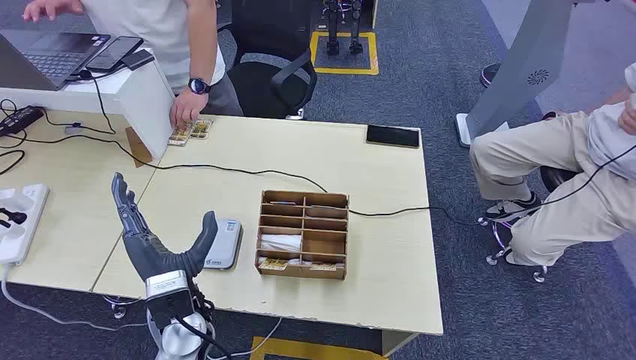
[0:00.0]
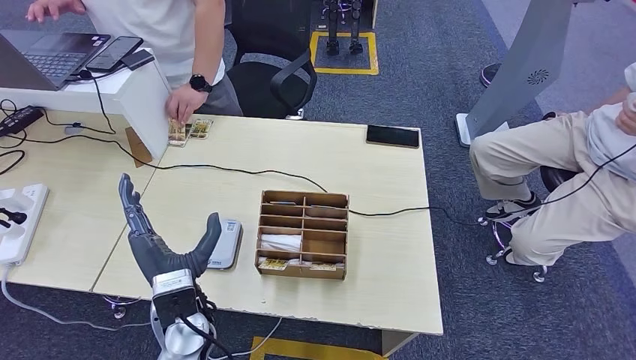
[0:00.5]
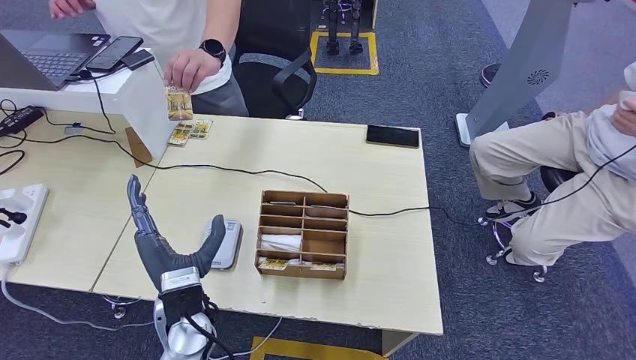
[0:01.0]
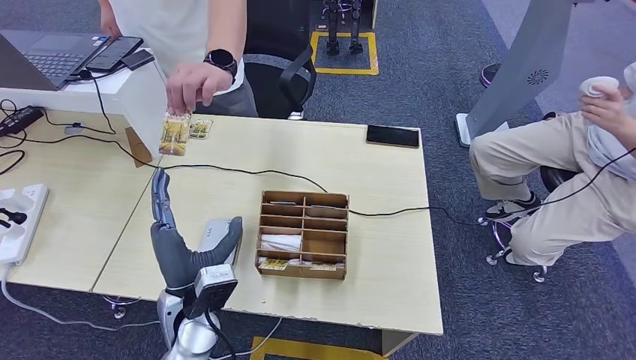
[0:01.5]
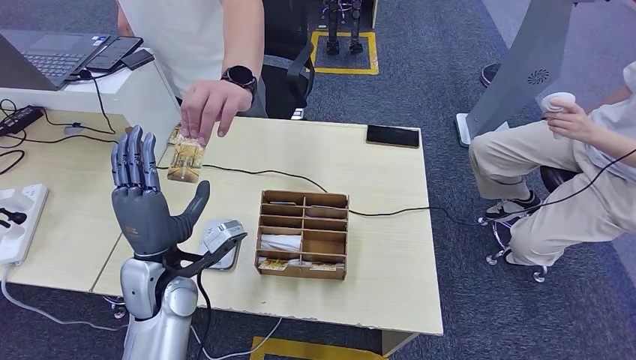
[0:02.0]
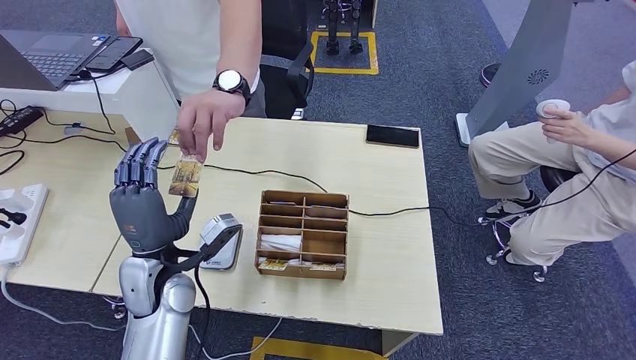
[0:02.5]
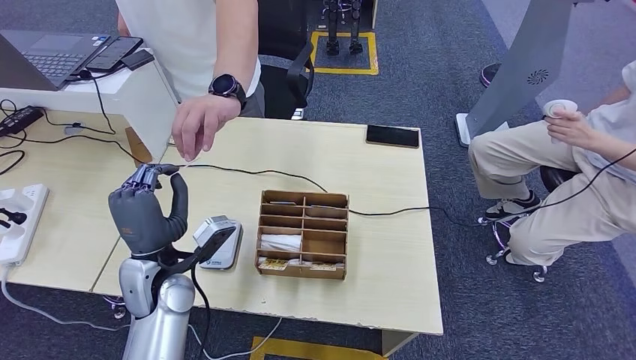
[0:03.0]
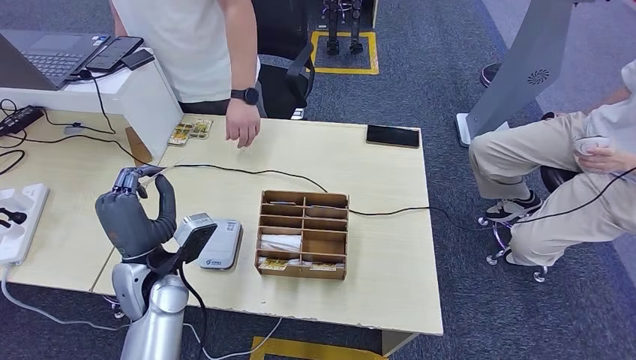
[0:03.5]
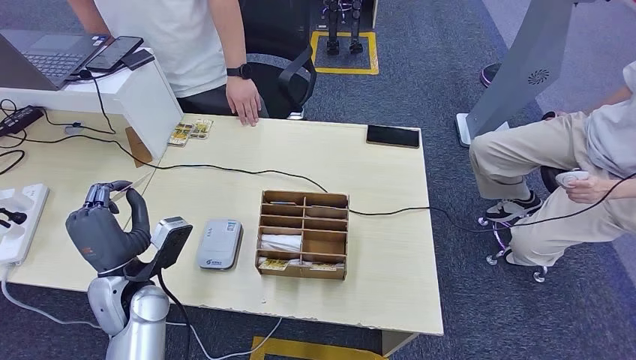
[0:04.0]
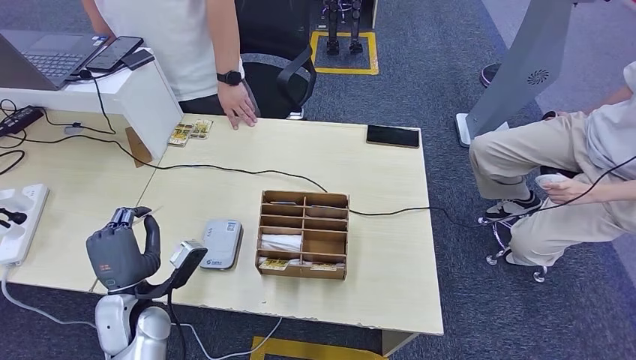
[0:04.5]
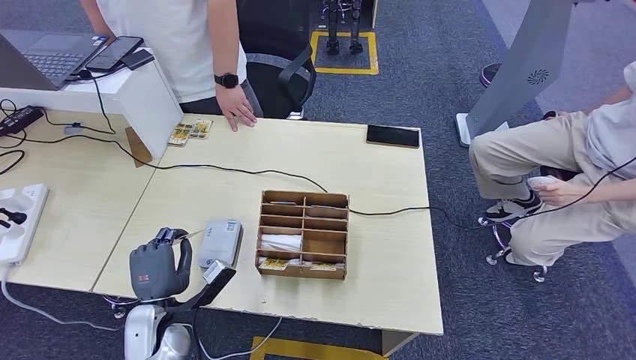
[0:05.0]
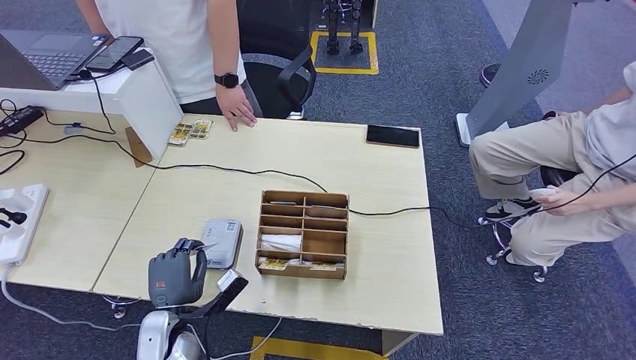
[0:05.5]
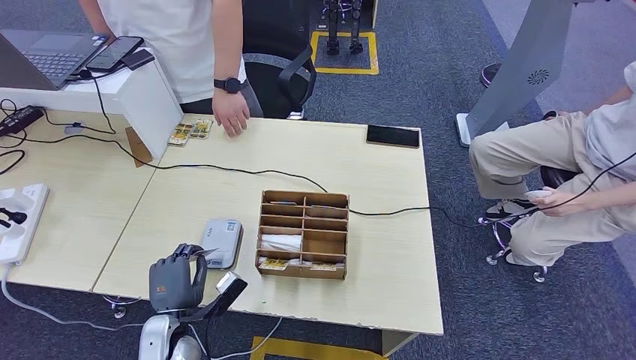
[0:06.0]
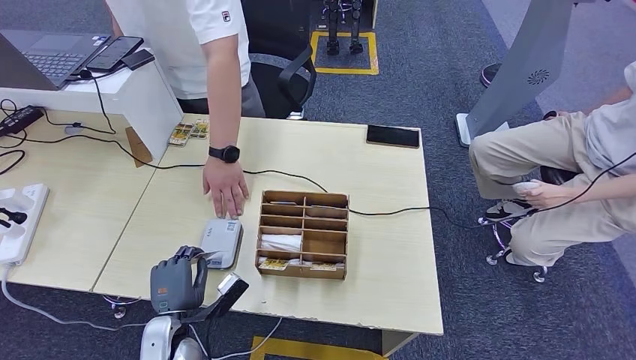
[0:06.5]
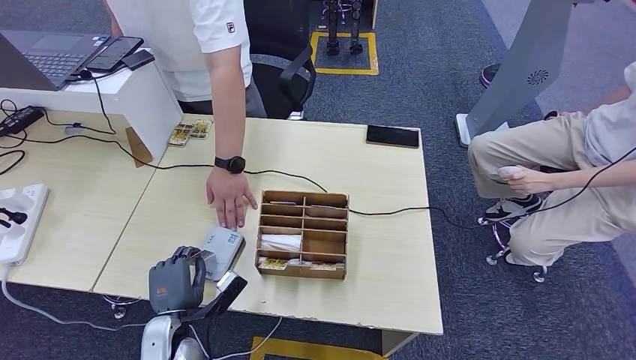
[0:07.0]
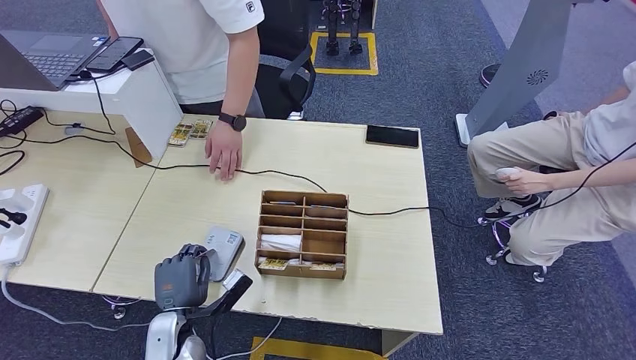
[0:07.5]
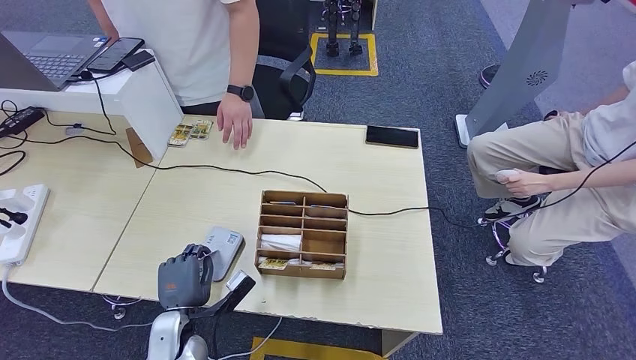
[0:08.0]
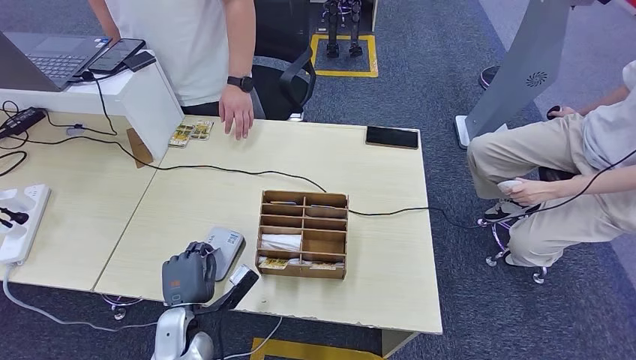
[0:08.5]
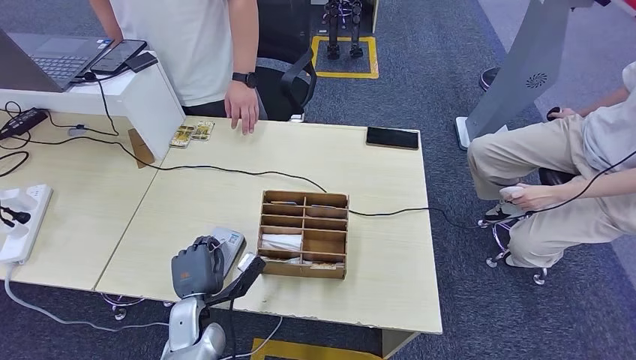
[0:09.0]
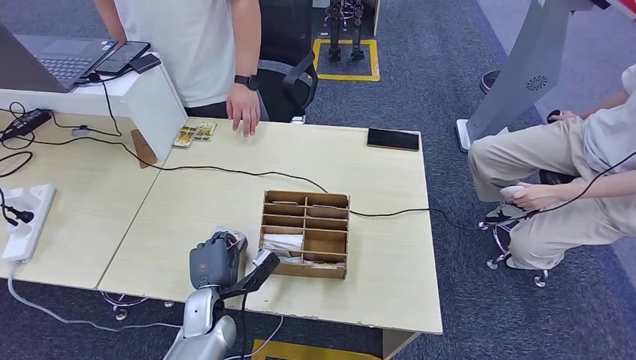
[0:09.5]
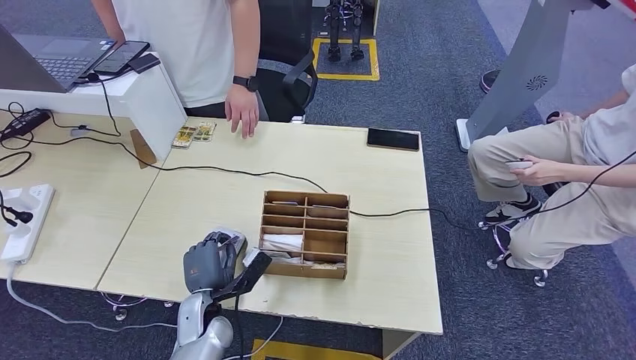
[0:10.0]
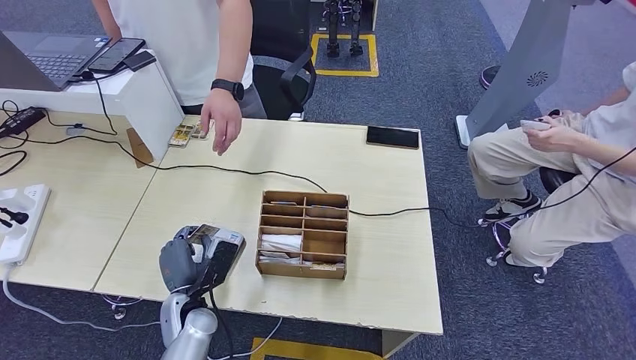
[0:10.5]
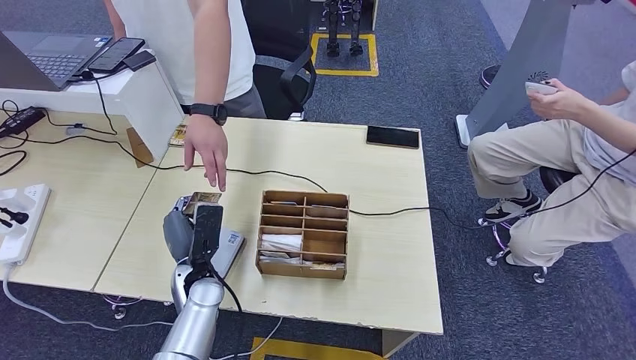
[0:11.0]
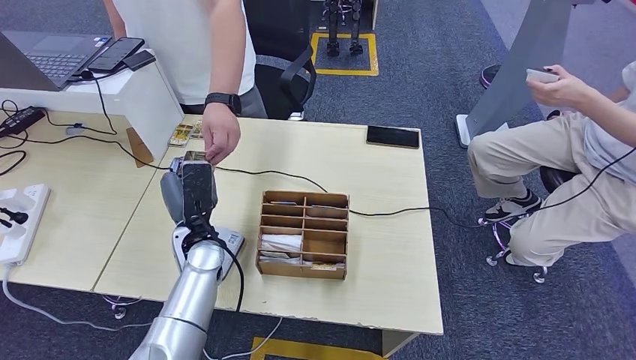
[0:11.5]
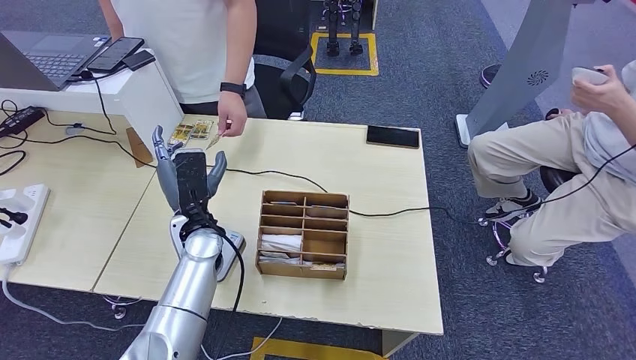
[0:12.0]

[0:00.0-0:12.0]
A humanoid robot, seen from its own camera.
Step, 0:00.0 to 0:03.0: Take the ID card from the person's hand.
Step, 0:03.5 to 0:08.5: Place the ID card on the card reader.
0:02.0 to 0:04.0: The left hand shifts approximately 5 cm to the left.
0:04.0 to 0:06.0: The left hand shifts approximately 10 cm downward.
0:06.0 to 0:08.0: The hands make only small movements.
0:08.0 to 0:10.0: The left hand moves some 5 cm.
0:10.0 to 0:12.0: The left hand heads upward and forward, covering approximately 20 cm.

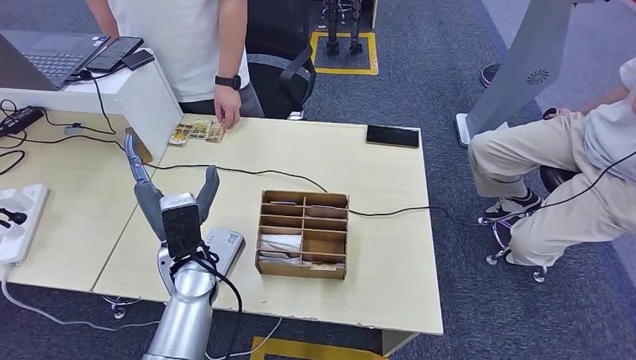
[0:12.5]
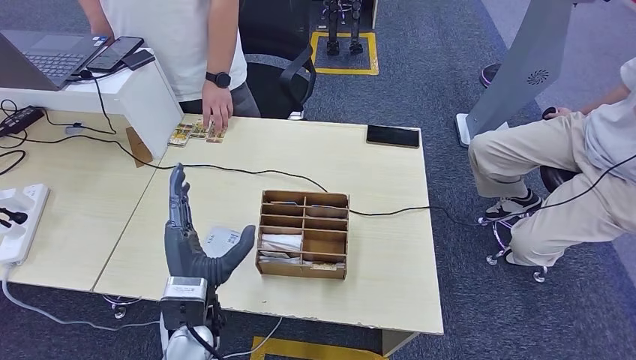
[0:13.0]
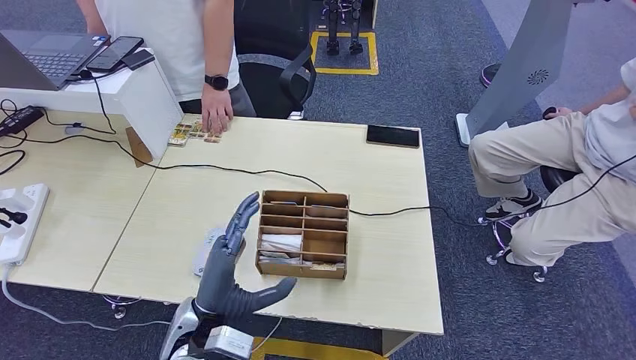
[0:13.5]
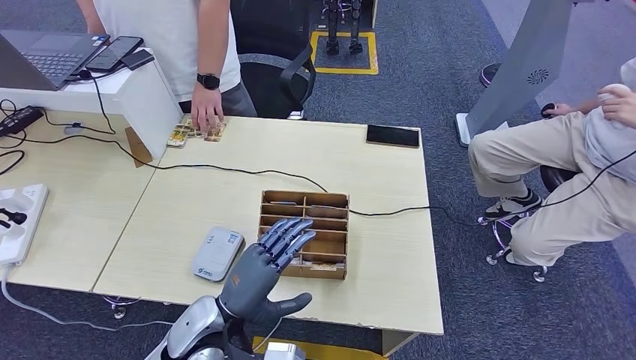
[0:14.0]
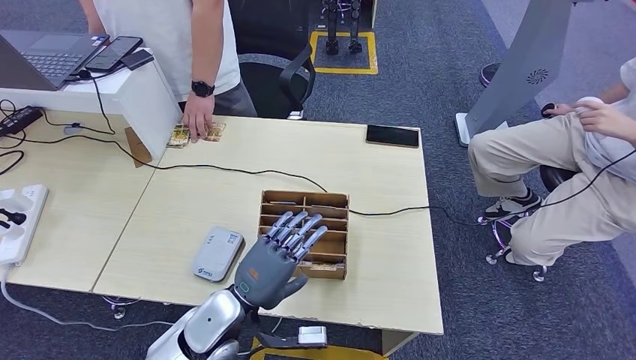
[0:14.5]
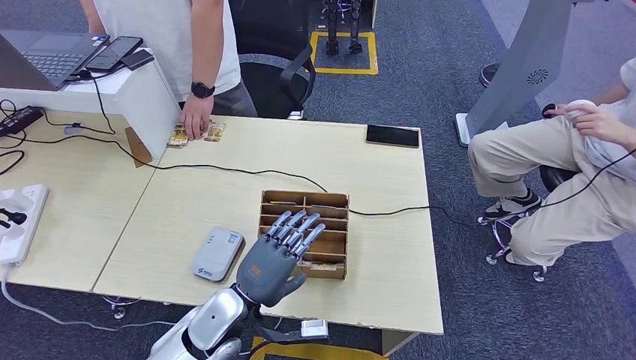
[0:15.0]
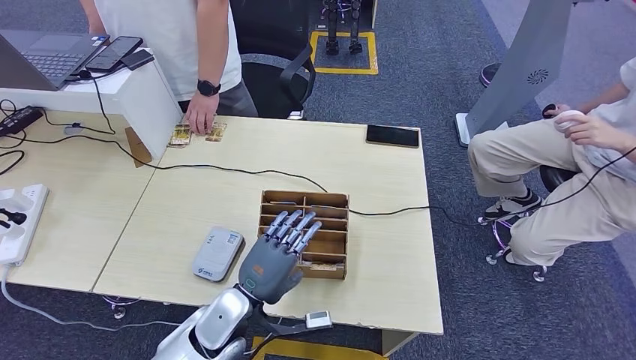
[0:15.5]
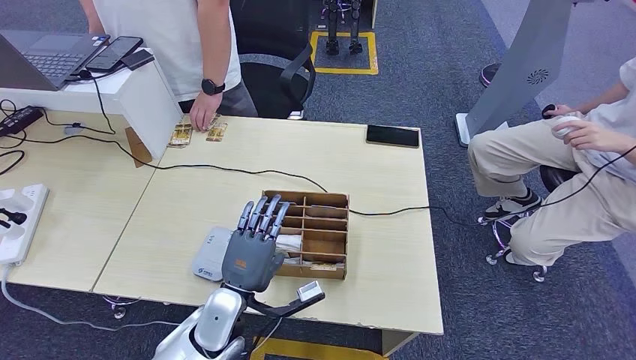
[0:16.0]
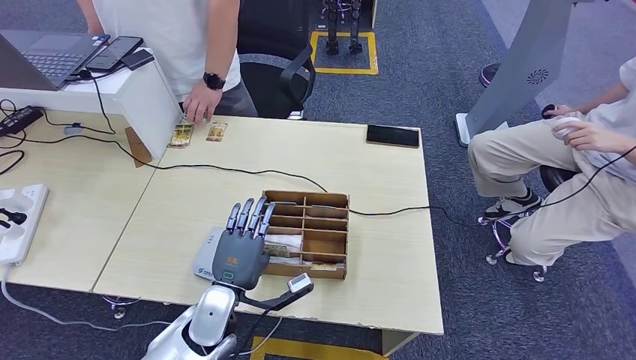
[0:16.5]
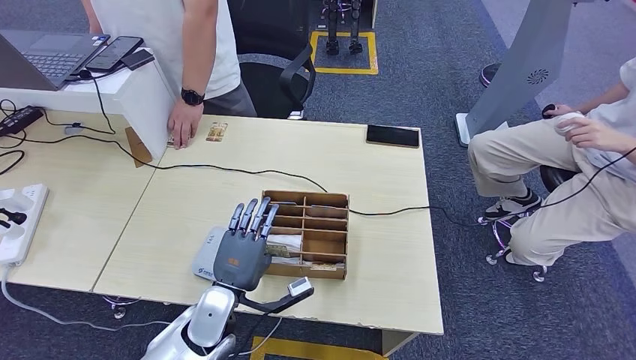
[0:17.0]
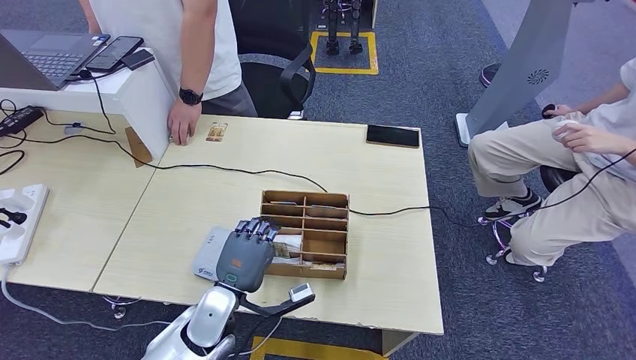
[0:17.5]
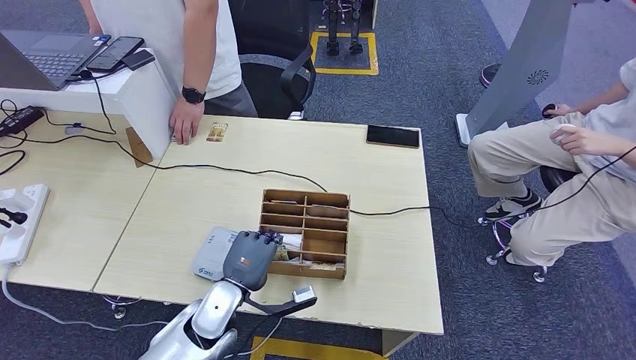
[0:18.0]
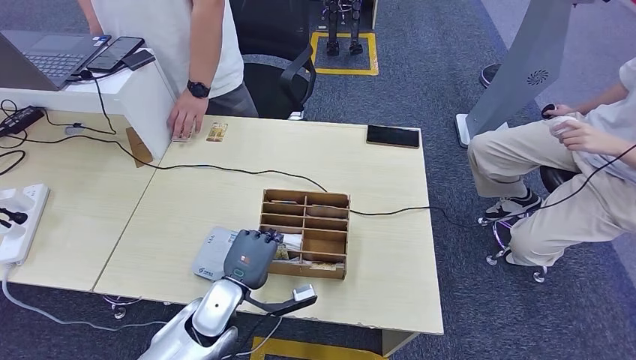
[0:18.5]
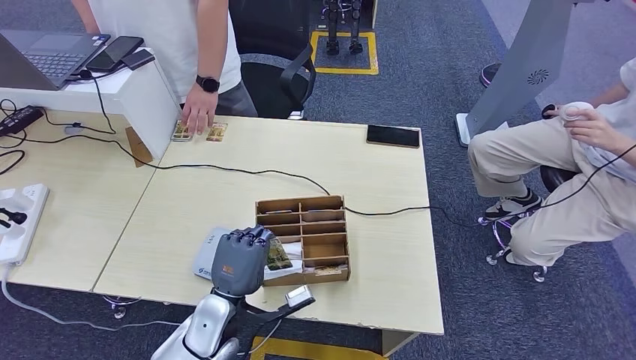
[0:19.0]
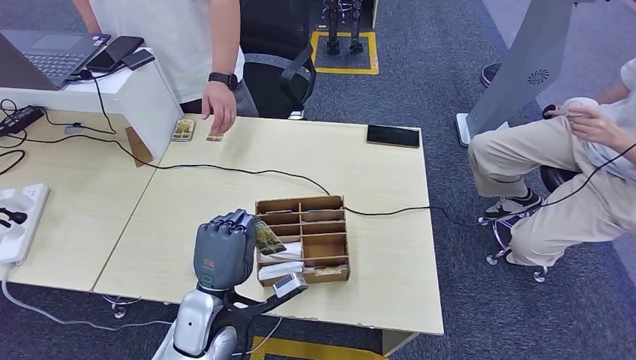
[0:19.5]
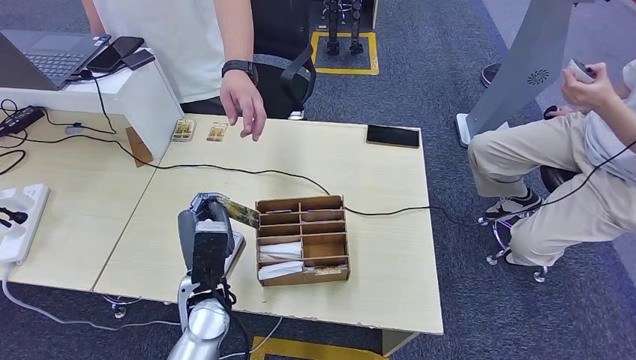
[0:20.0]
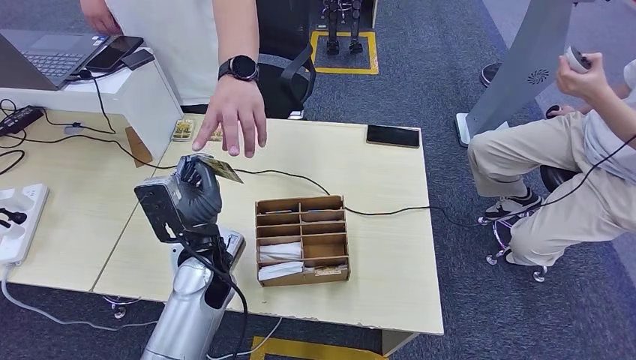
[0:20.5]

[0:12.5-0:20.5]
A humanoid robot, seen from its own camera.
Step, 0:13.5 to 0:19.5: Pick up the room key from the key card box.
0:12.5 to 0:14.5: The left hand shifts approximately 10 cm backward.
0:16.5 to 0:18.5: The hands make only small movements.
0:18.5 to 0:20.5: The left hand moves upward and forward, approximately 10 cm.
